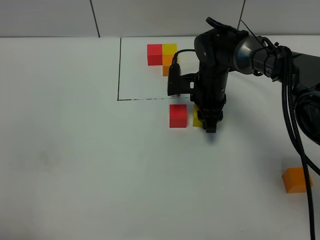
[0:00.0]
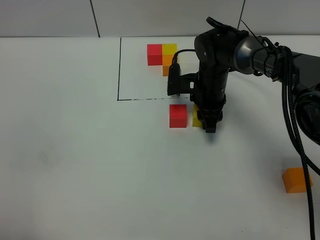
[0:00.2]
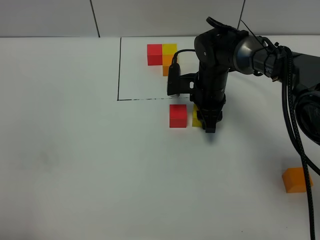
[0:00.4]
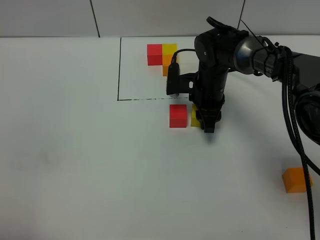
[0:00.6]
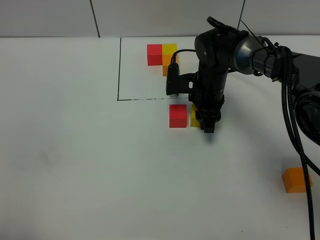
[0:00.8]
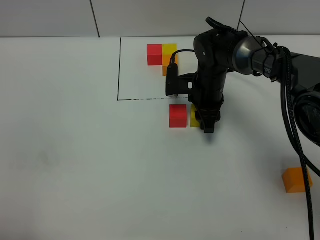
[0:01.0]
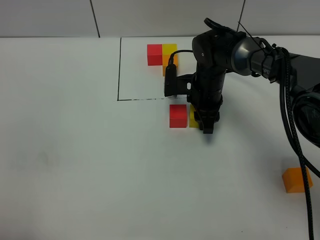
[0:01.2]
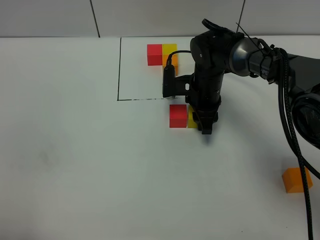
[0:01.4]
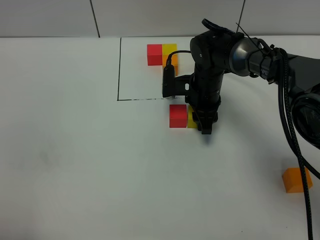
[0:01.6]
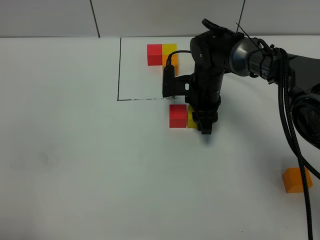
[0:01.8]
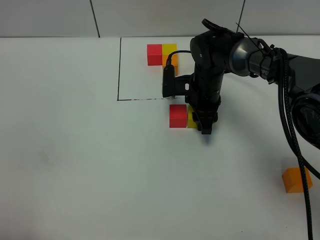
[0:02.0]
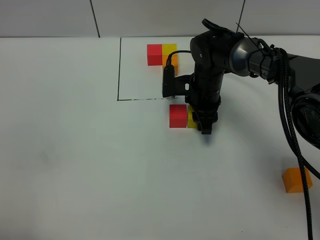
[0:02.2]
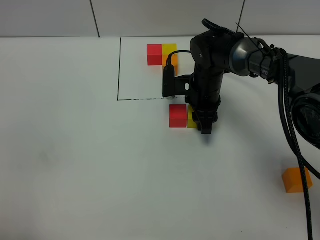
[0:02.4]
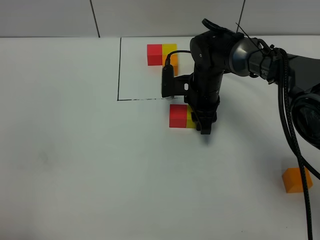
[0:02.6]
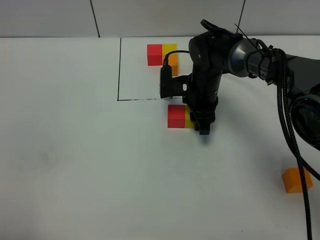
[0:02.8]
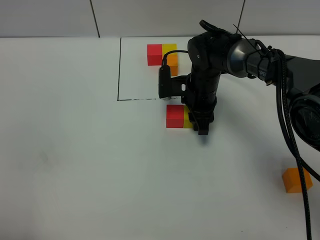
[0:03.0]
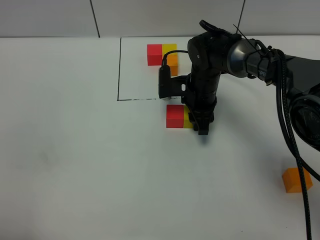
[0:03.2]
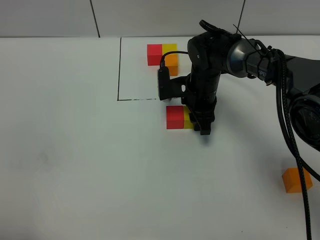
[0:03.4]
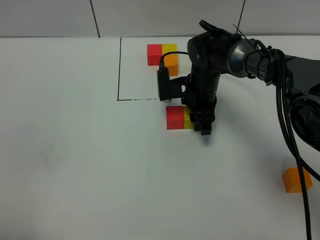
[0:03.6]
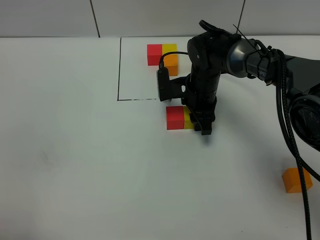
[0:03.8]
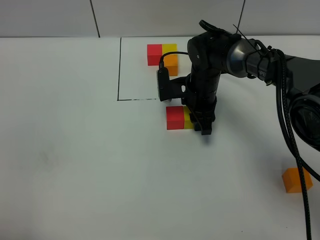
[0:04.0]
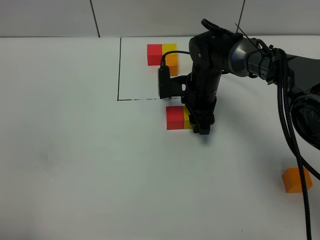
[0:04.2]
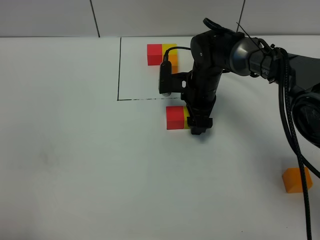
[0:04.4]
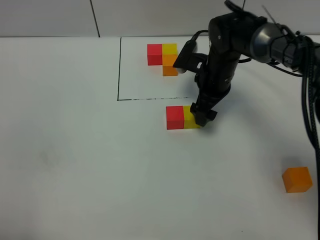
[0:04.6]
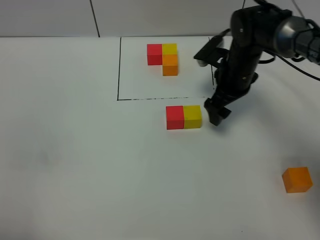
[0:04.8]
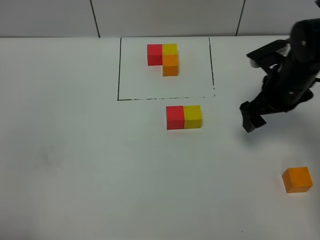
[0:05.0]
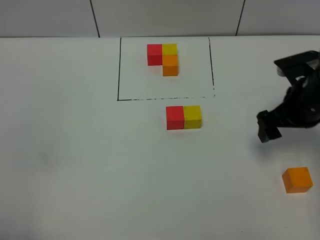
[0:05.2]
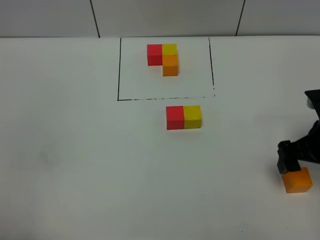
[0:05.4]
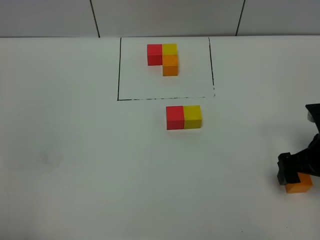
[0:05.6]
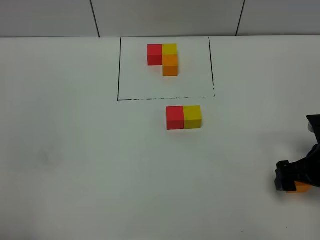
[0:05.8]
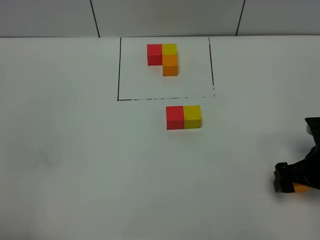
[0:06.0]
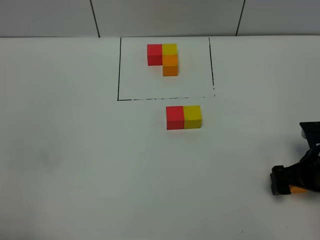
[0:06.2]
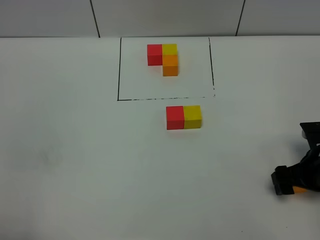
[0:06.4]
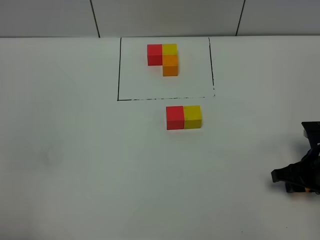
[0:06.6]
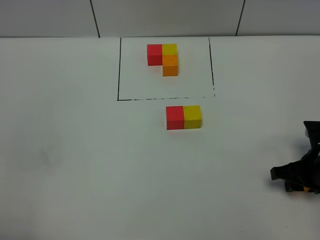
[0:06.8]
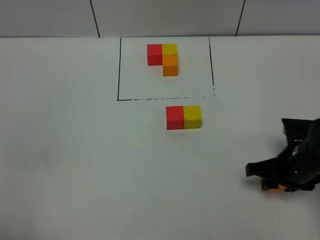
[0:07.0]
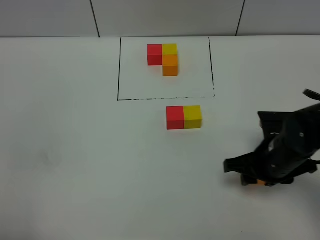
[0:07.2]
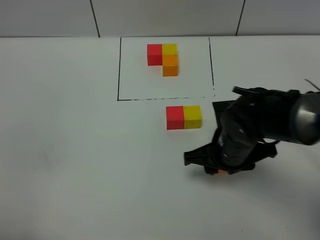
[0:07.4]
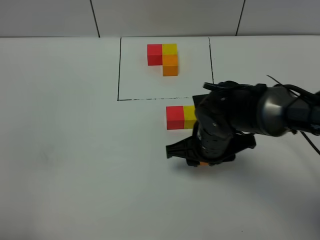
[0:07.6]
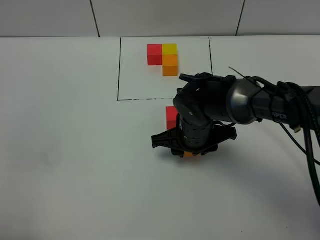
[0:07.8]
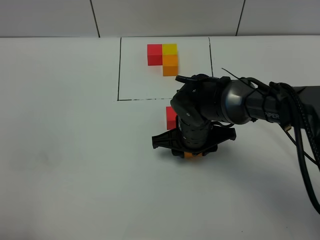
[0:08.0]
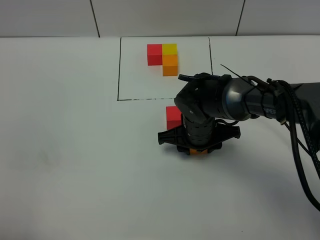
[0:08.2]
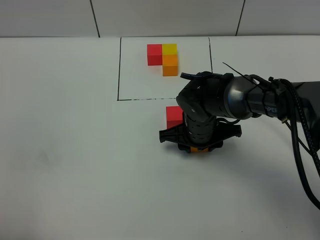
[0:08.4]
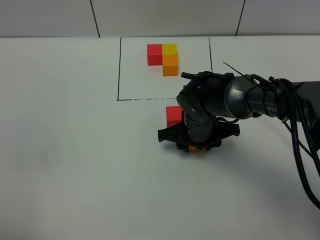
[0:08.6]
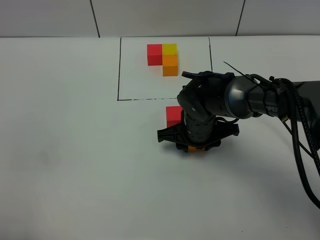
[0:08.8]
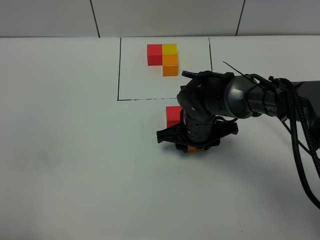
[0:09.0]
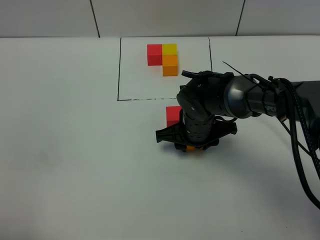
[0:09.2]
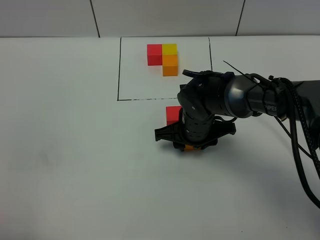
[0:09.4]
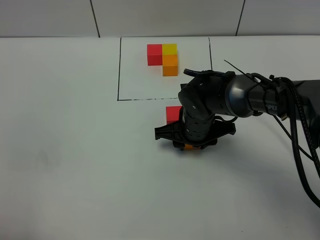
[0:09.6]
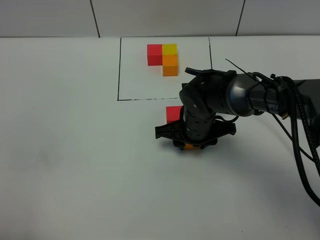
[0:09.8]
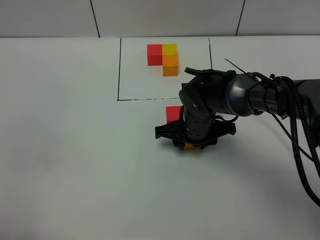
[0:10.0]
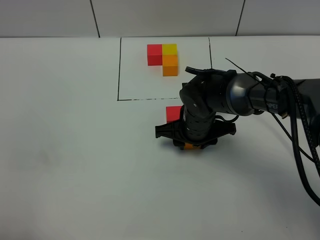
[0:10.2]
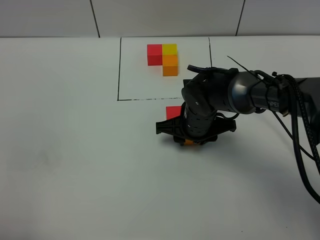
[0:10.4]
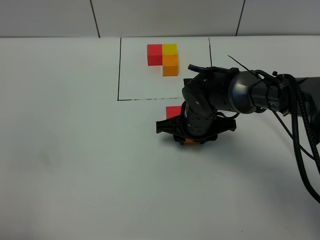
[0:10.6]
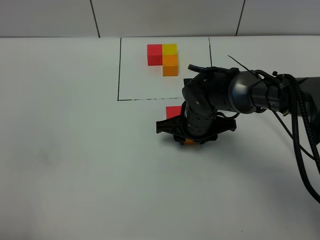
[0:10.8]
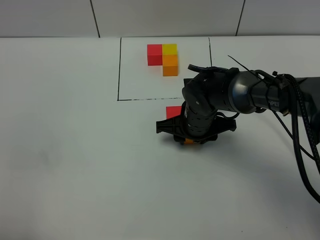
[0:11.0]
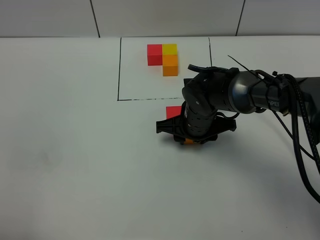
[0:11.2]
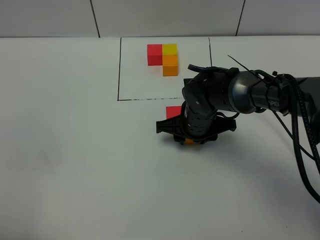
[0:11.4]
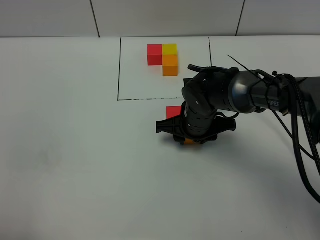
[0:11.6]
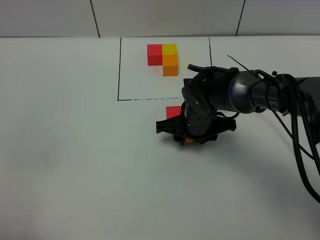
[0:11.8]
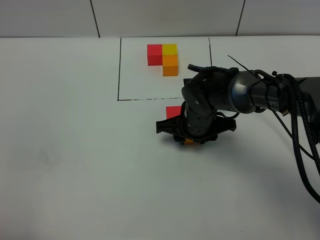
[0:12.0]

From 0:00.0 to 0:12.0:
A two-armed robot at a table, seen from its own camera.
Task of the whole recording: According to the building block template in front, assemble the scattered blocks together.
Step, from 0:00.0 to 0:04.6: Put the yellow build block on the right of the red build block.
From 0:00.0 to 0:01.6: The two grippers keep their place.
From 0:01.6 to 0:03.0: The two grippers keep their place.
From 0:03.0 to 0:04.4: The right gripper opens.
From 0:04.4 to 0:06.0: The right gripper shifts about 30 cm backward and to the right.
From 0:06.0 to 0:07.6: The right gripper shifts about 20 cm to the left, and closes up.
From 0:07.6 to 0:09.0: The right gripper moves about 5 cm.
From 0:09.0 to 0:10.4: The grippers make only small movements.
From 0:10.4 to 0:12.0: Neither gripper changes place.

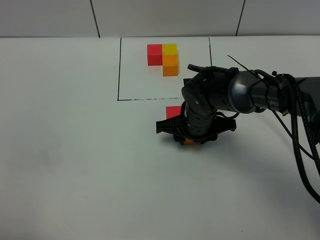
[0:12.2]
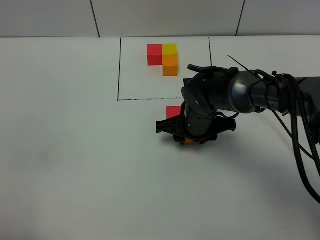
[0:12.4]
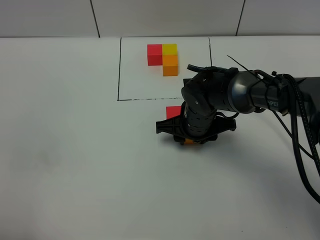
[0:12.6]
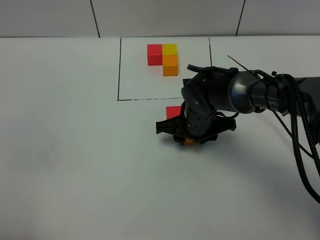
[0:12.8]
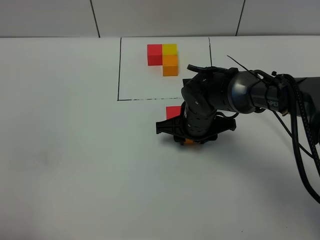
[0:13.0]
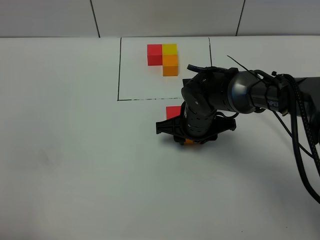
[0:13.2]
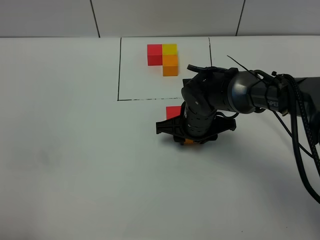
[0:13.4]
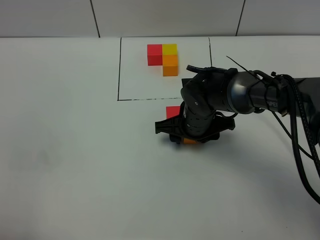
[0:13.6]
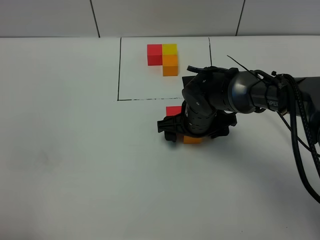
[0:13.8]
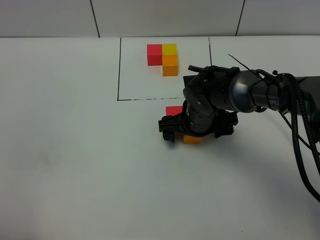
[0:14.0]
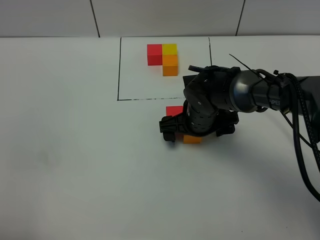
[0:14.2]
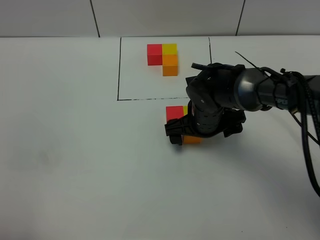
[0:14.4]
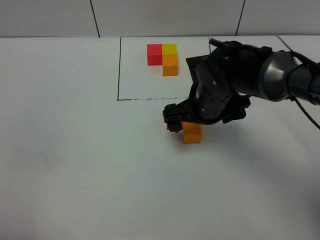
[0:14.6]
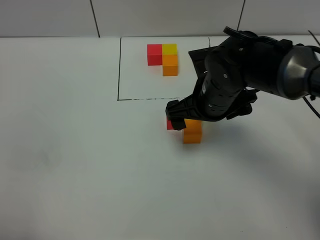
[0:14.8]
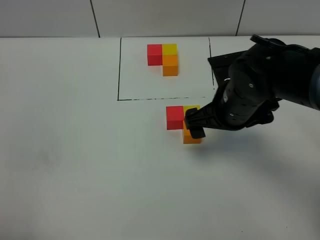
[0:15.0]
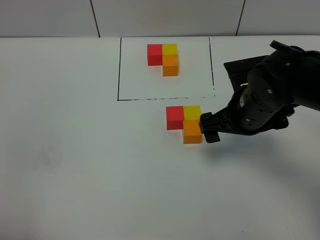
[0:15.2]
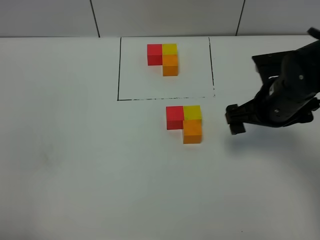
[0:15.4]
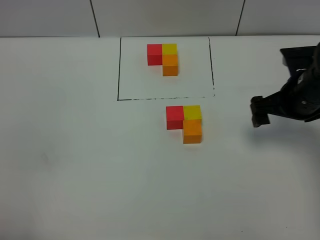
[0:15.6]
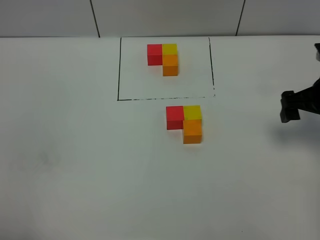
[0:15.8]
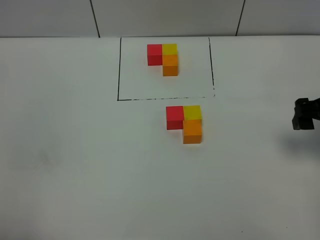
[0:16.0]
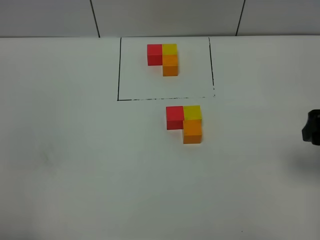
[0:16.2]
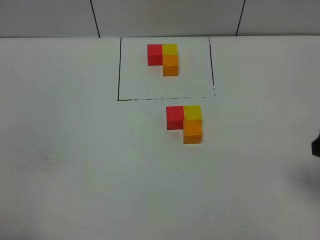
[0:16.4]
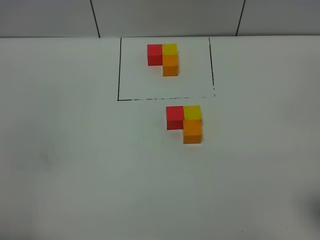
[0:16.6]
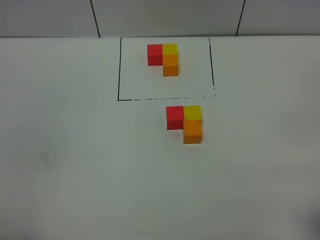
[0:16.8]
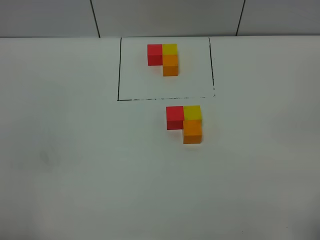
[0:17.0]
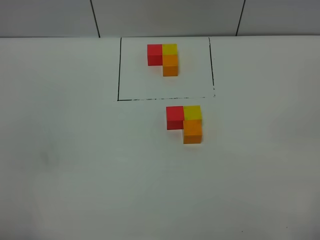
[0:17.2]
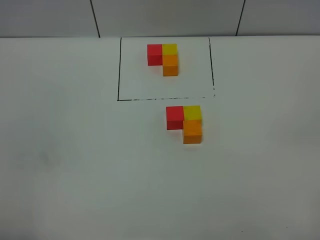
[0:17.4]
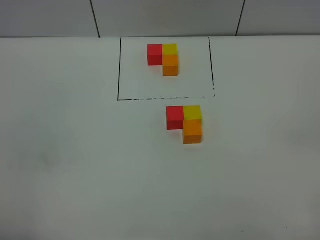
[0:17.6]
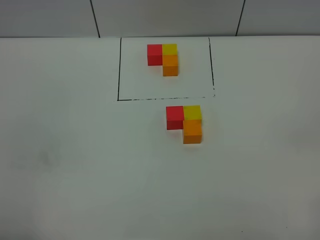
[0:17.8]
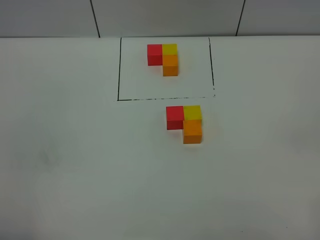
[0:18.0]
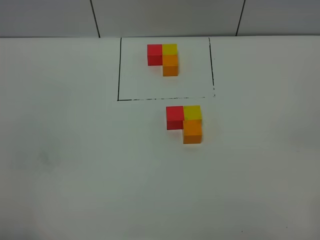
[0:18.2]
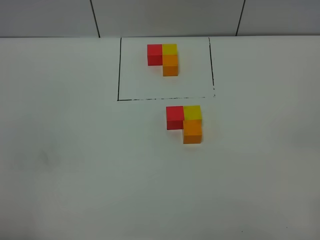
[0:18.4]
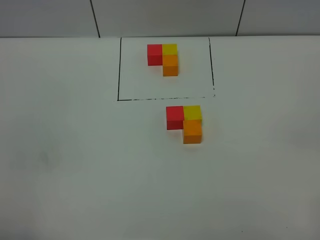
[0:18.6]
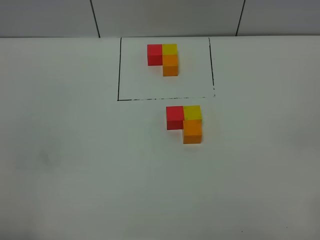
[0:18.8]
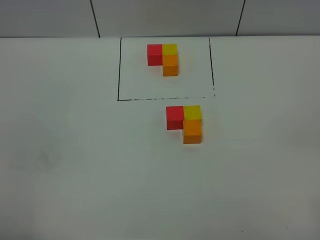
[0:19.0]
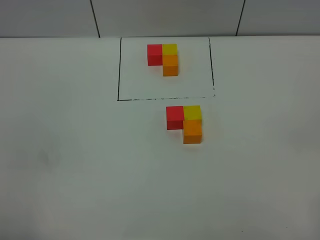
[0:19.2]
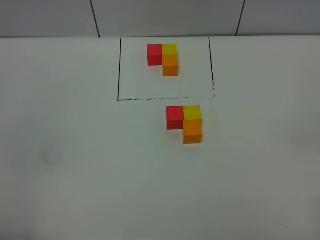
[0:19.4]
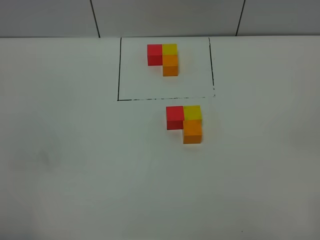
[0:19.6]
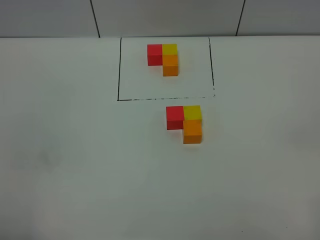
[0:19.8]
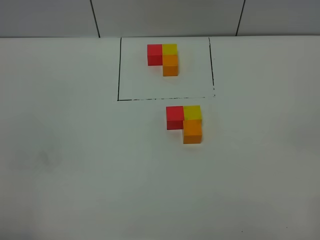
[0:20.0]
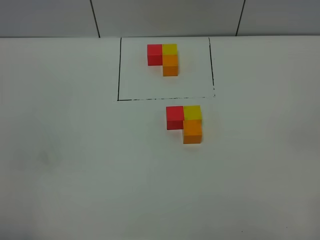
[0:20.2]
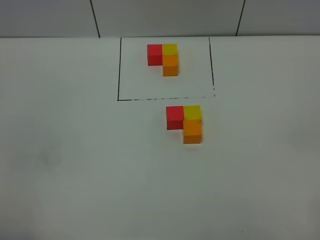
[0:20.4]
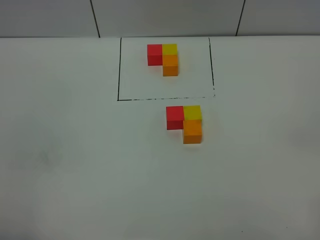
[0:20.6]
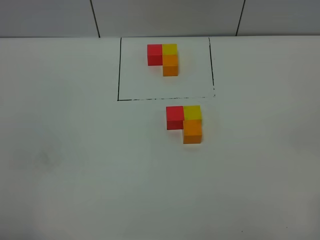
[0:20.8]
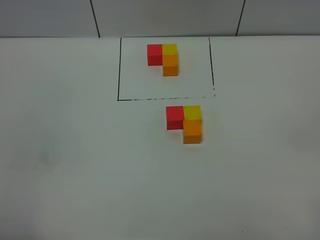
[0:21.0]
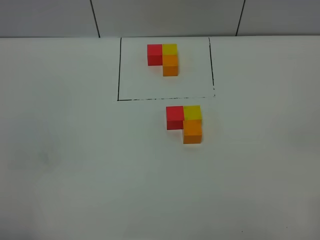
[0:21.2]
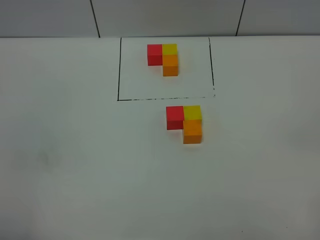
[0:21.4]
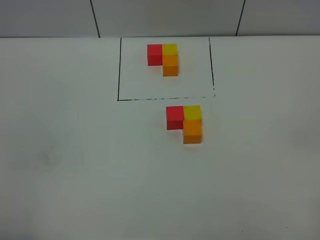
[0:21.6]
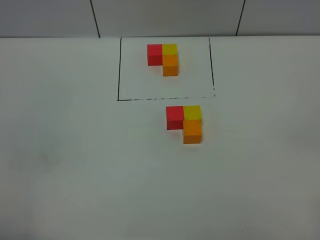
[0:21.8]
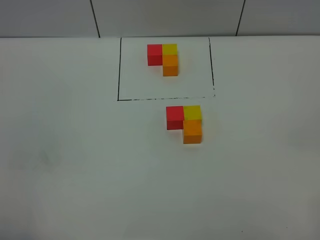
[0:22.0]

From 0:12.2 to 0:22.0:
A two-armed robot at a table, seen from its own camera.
Task of the whole recording: According to the building block template in front, assemble the scattered blocks together.
Step, from 0:12.2 to 0:14.2: Put the orange build block on the behind of the yellow build block.
From 0:12.2 to 0:13.6: Neither gripper changes place.
From 0:13.6 to 0:15.0: The right gripper shifts some 10 cm upward and backward, and opens.
From 0:15.0 to 0:16.4: The right gripper travels to the right and backward by about 20 cm.
From 0:16.4 to 0:17.8: The right gripper heads backward, covering approximately 20 cm.
From 0:17.8 to 0:22.0: Neither gripper changes place.
